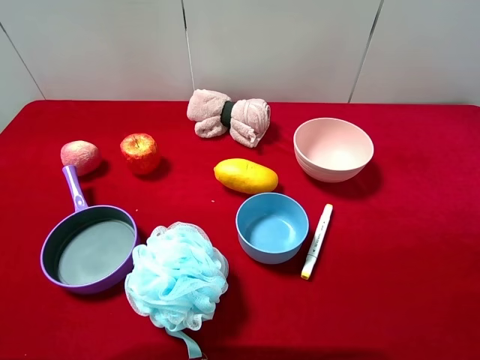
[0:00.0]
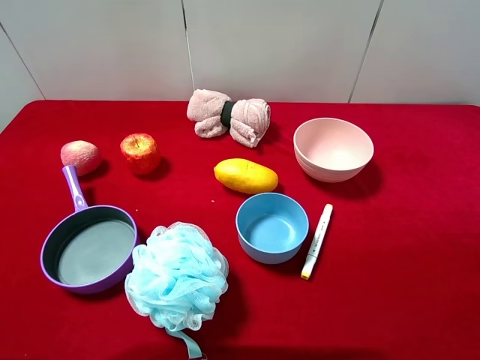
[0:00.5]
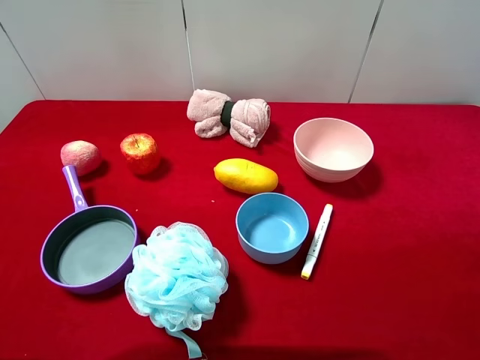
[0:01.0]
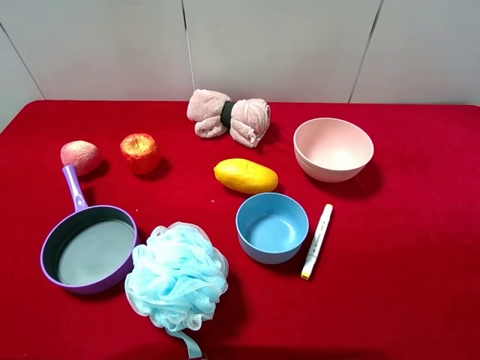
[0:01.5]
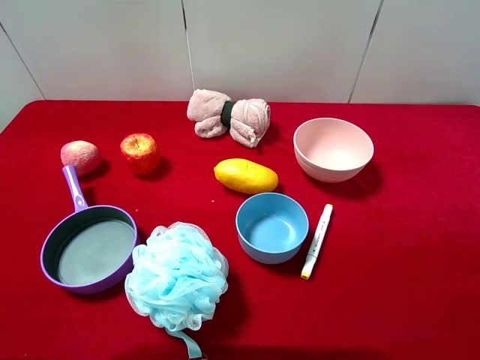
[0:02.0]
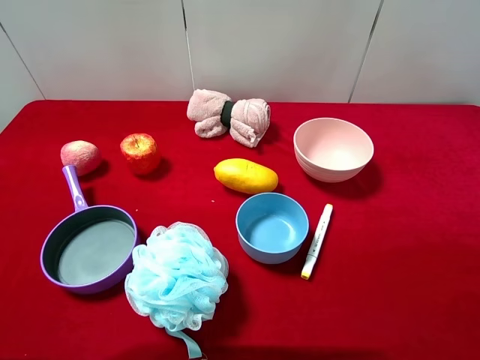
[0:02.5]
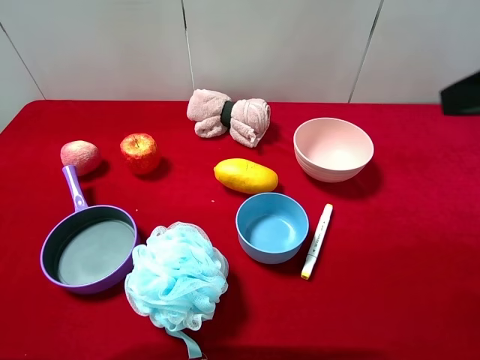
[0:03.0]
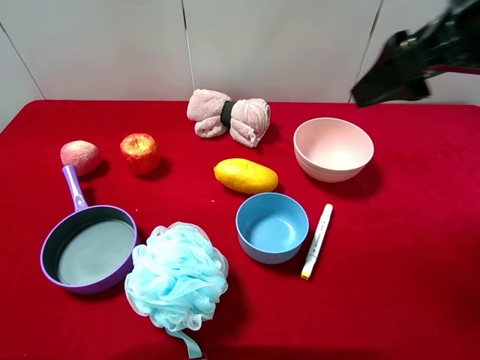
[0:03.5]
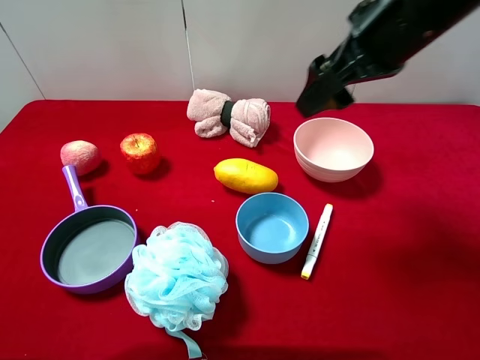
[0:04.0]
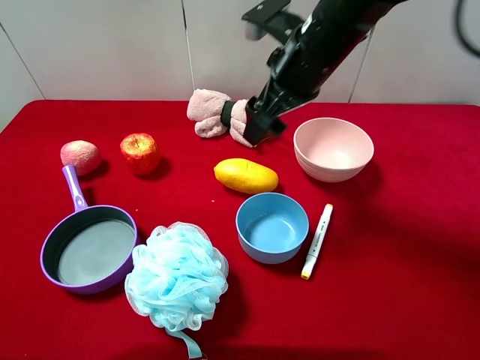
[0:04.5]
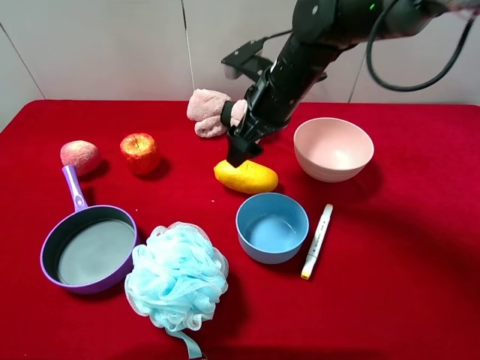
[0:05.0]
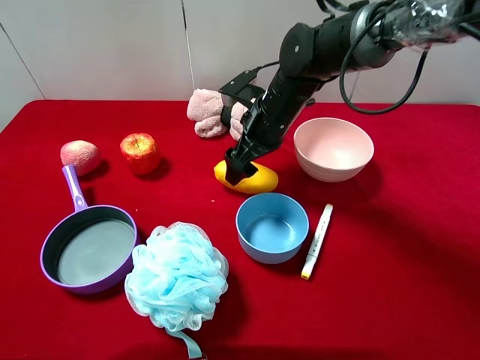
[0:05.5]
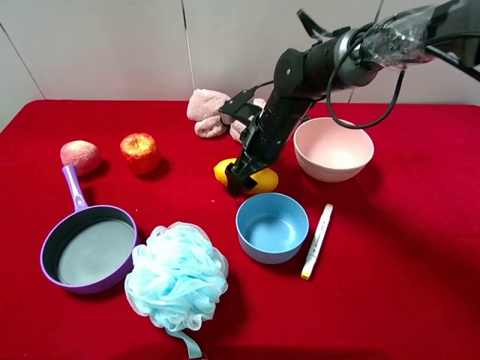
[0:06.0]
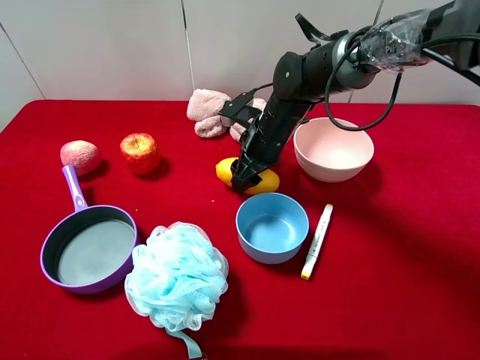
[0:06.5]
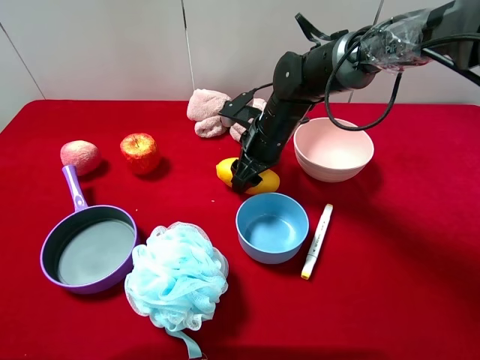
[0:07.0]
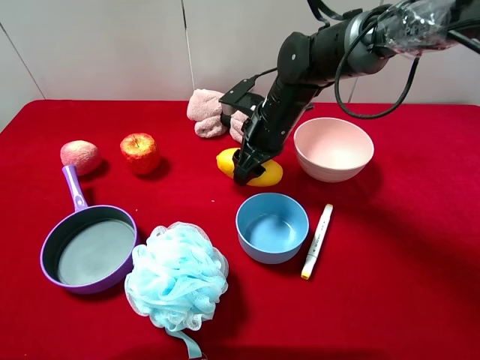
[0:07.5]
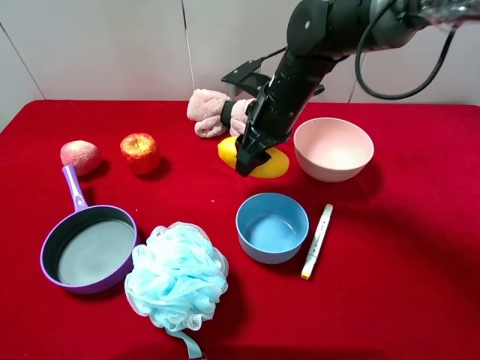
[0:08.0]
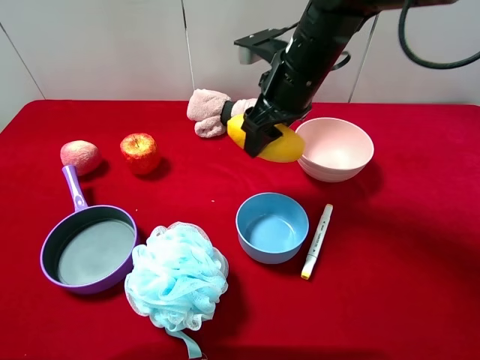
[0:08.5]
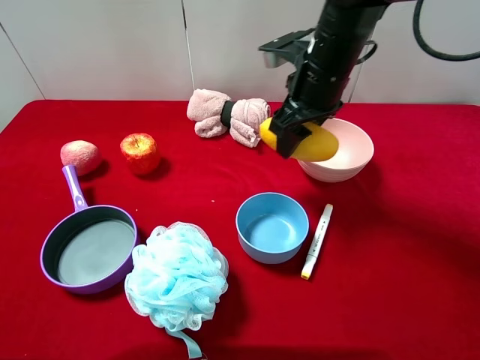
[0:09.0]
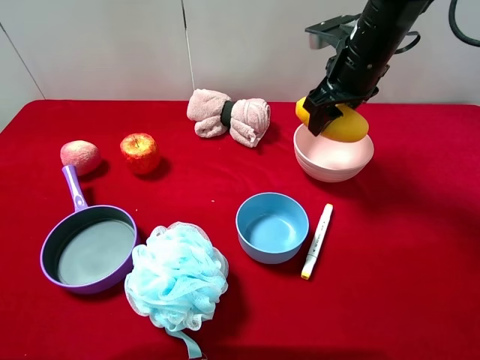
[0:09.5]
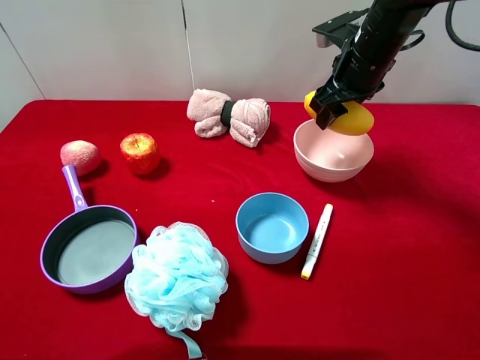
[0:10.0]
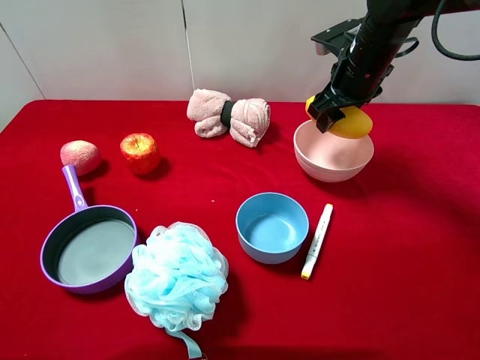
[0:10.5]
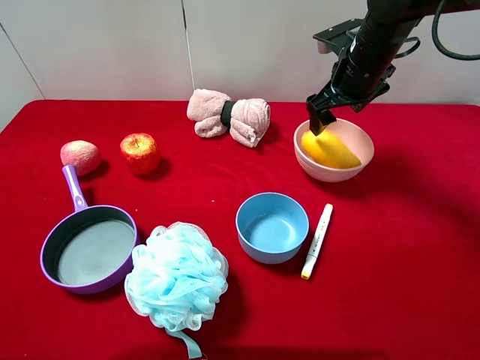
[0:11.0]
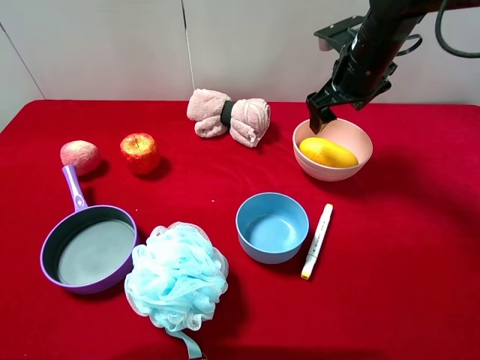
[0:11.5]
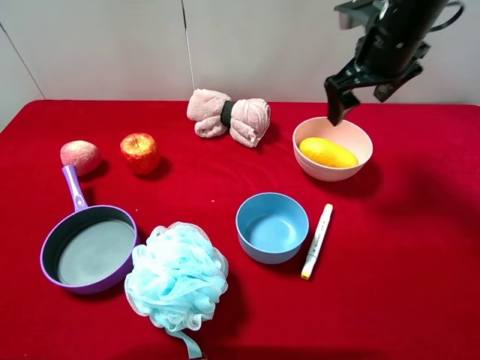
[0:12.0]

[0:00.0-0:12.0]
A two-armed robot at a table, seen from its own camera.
Task of the whole recording: pick up an item with a gripper and place it in a random container on the desktop.
0:02.0 to 0:04.0: The right gripper shifts about 30 cm forward and to the left.
0:04.0 to 0:06.0: The right gripper shifts some 25 cm downward, to the left and forward.
0:06.0 to 0:08.0: The right gripper shifts roughly 5 cm upward, and closes up.
0:08.0 to 0:10.0: The right gripper travels to the right by some 10 cm.
0:10.0 to 0:12.0: The right gripper moves approximately 5 cm, and opens up.

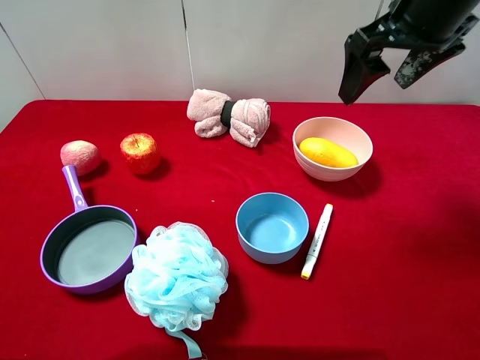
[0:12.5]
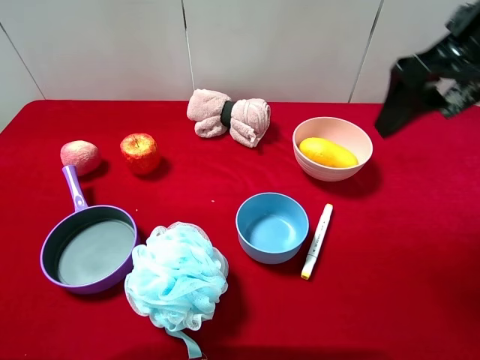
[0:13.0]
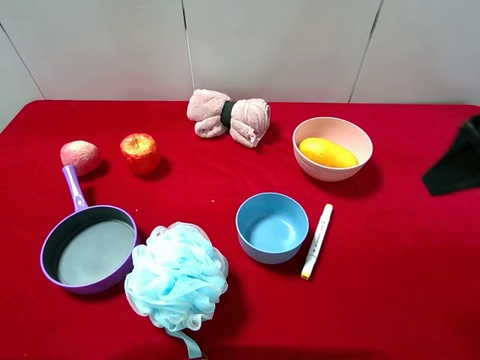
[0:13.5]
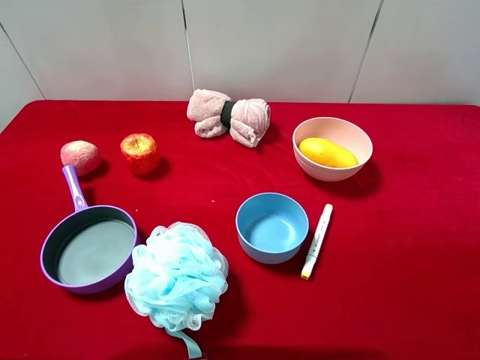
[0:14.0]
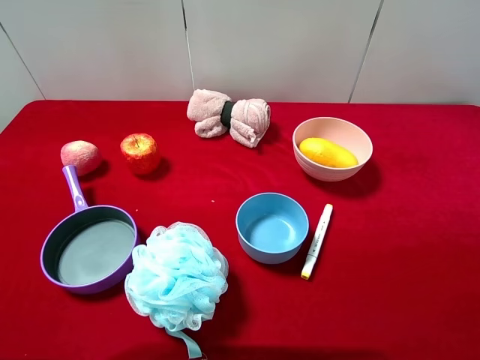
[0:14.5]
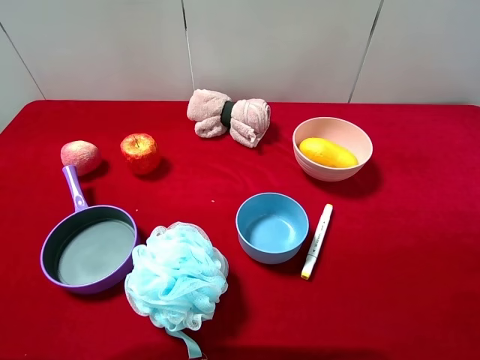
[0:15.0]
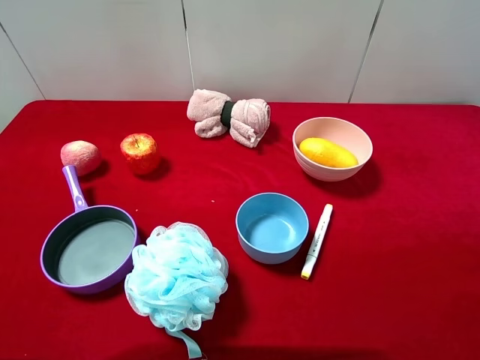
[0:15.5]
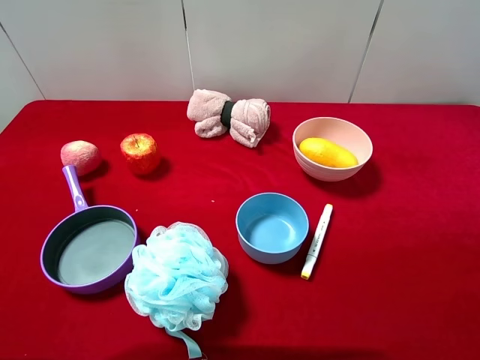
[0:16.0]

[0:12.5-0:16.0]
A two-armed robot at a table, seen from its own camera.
Task of the whole recording: pick up an item with a gripper and place it in a random container on the desktop.
0:12.5 to 0:14.5: The right gripper shifts some 30 cm backward.
